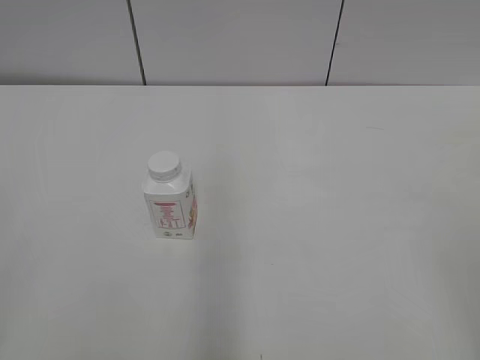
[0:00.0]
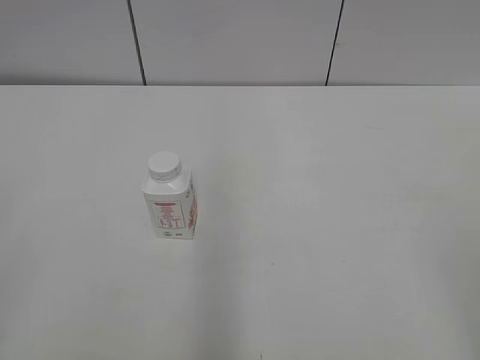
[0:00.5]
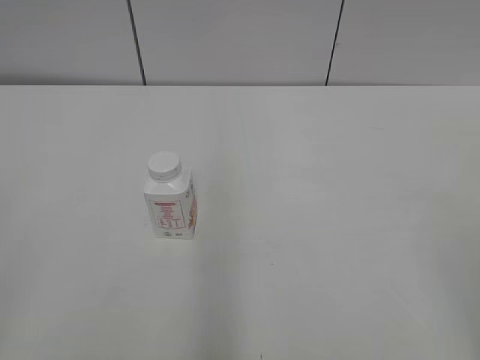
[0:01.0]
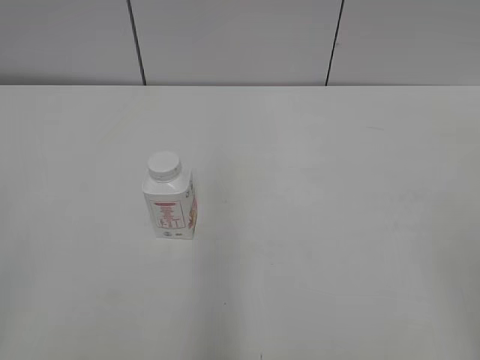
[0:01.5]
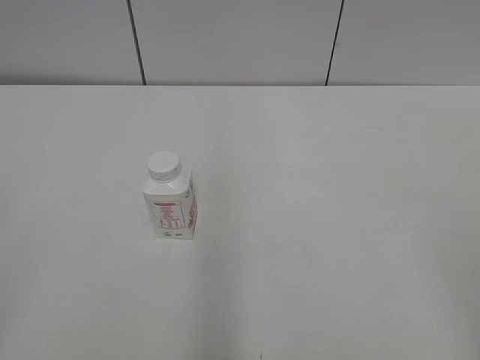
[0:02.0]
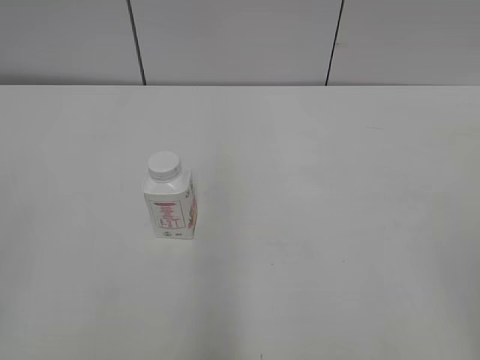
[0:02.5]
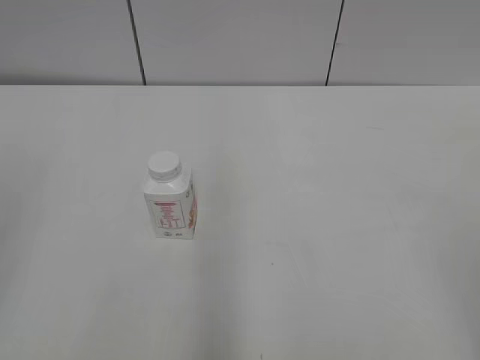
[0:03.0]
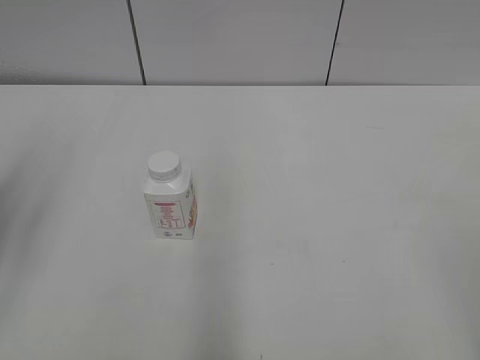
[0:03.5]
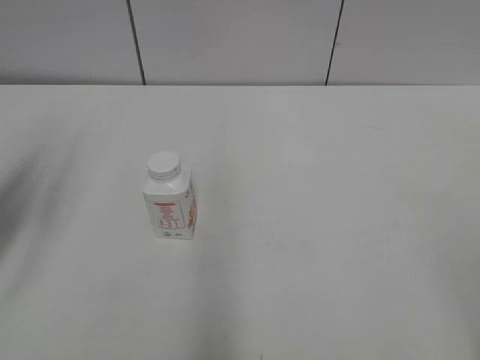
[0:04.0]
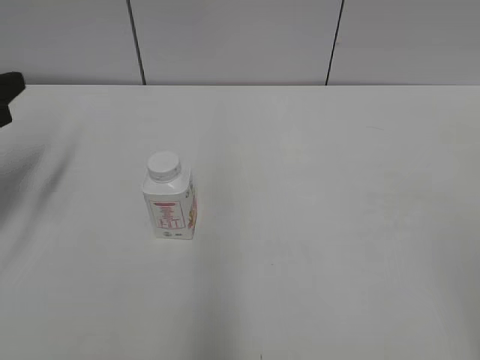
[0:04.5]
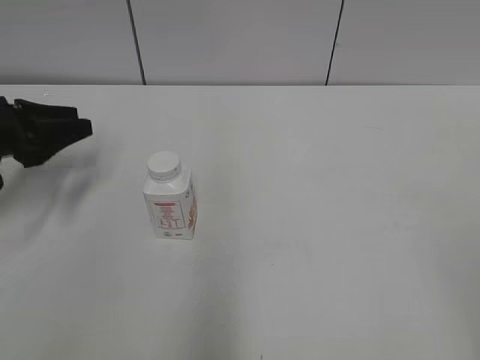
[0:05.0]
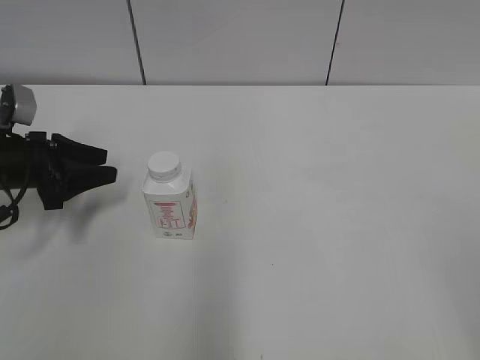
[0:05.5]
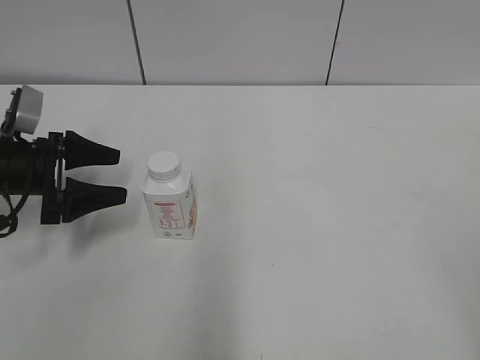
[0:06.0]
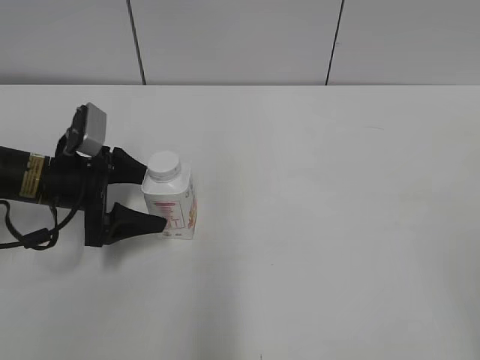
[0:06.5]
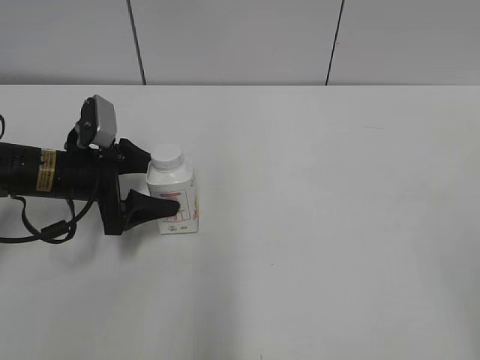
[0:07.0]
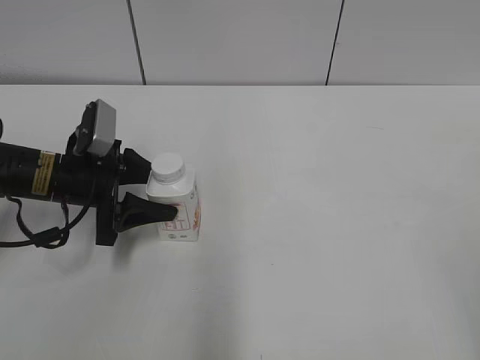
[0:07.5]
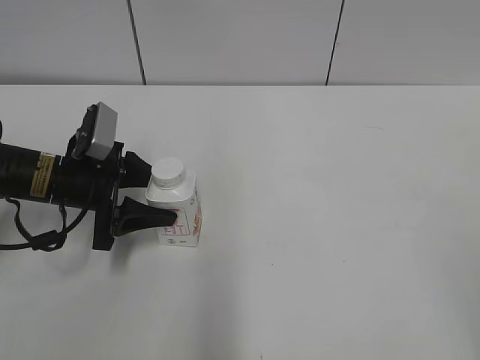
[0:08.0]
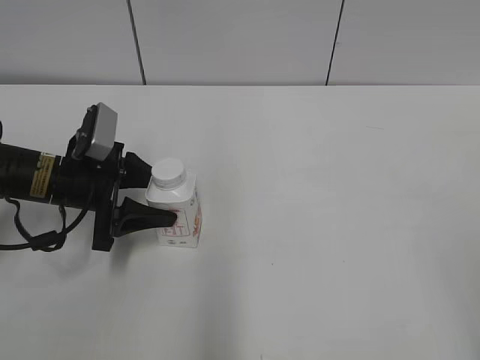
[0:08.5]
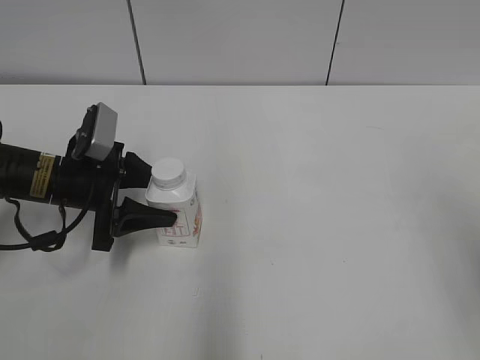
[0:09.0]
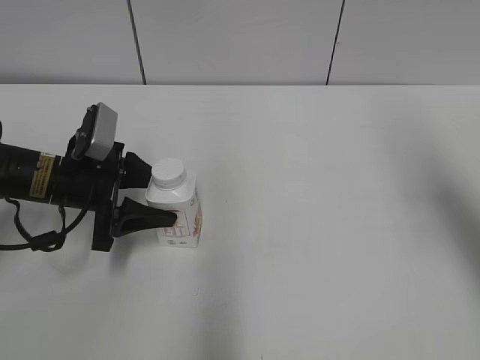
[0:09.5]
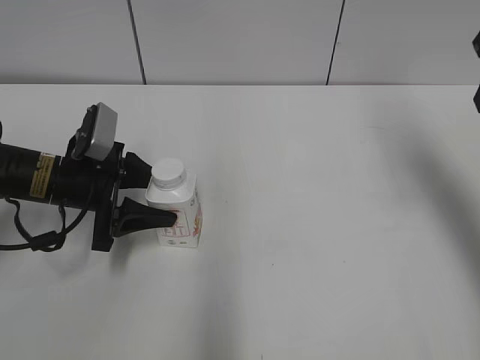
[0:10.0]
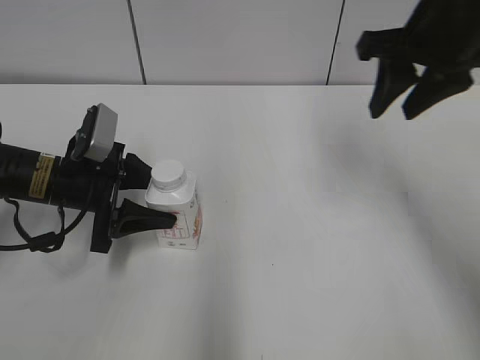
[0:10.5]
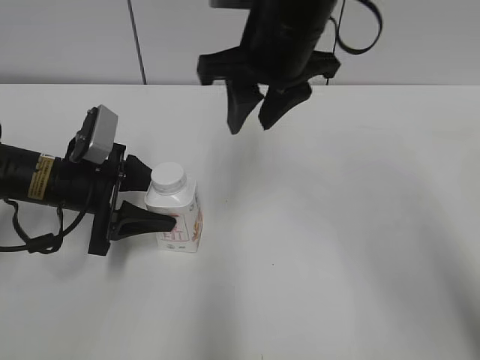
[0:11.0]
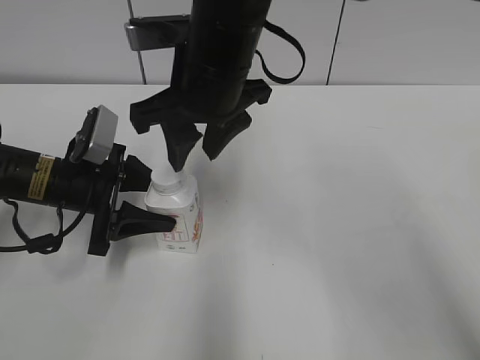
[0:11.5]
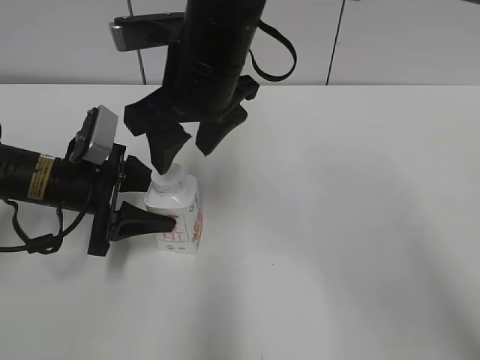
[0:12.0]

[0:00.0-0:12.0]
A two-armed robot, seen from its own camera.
Step, 0:00.0 to 0:10.5: Grasp the bottle and move it to the center of the table with the left gripper.
0:02.0 to 0:04.0: The left gripper shifts approximately 25 cm forward.
0:04.0 to 0:06.0: The left gripper shifts about 20 cm downward and forward, and opens up.
0:06.0 to 0:08.0: The left gripper travels to the right by approximately 5 cm, and closes up.
0:08.0 to 0:10.0: The right gripper heads forward, covering approximately 30 cm, and closes its fingers.
0:10.0 to 0:12.0: The right gripper is displaced to the left by about 30 cm, and opens its fingers.

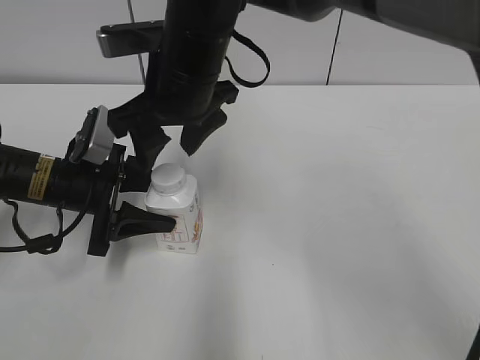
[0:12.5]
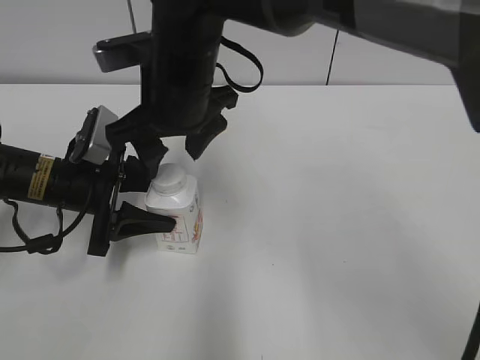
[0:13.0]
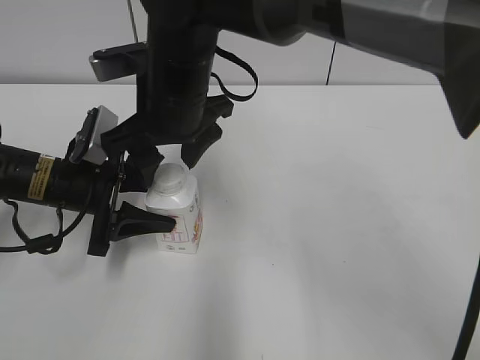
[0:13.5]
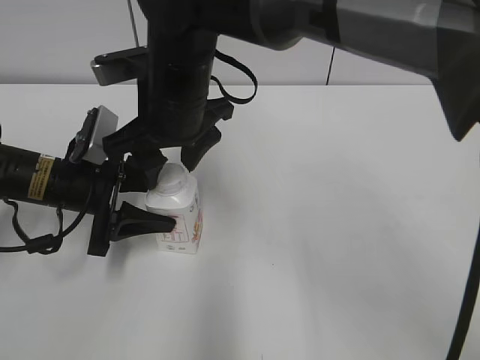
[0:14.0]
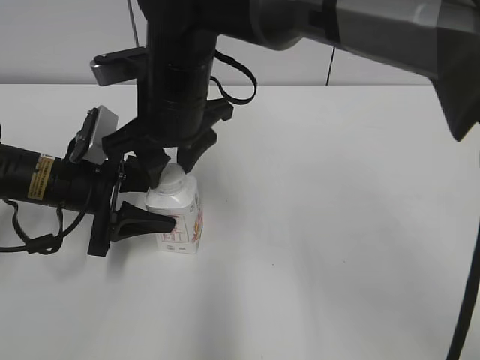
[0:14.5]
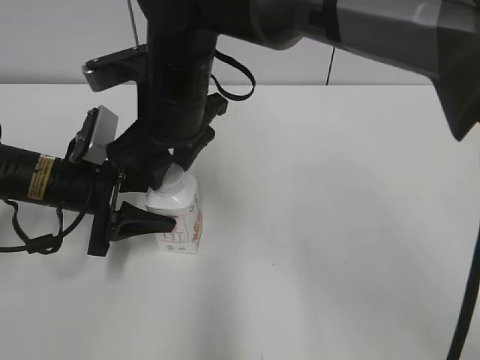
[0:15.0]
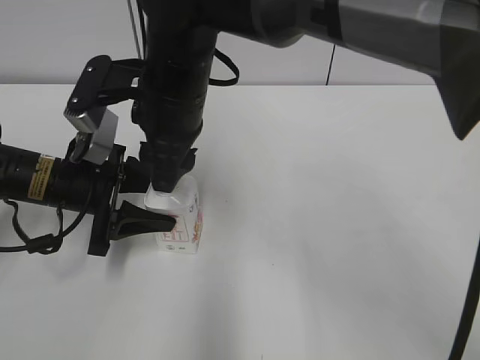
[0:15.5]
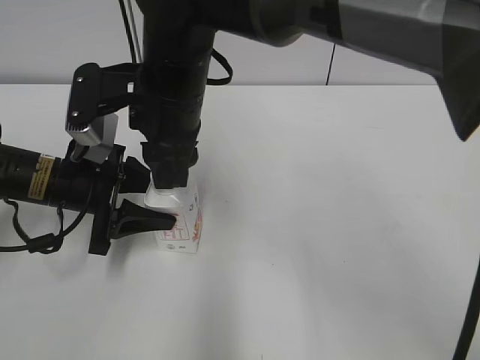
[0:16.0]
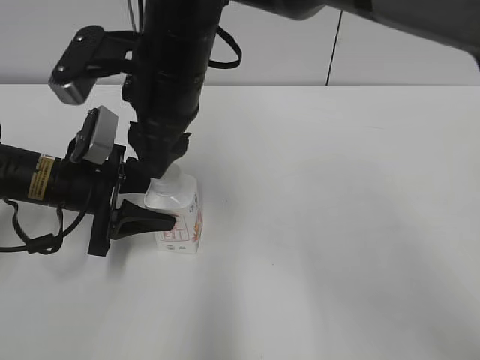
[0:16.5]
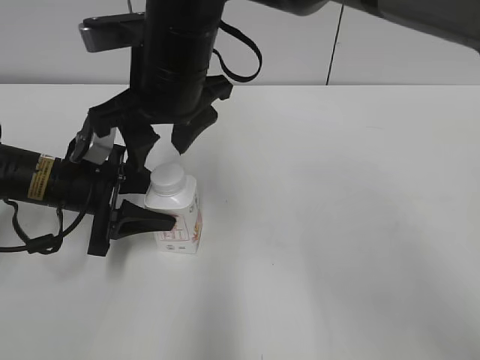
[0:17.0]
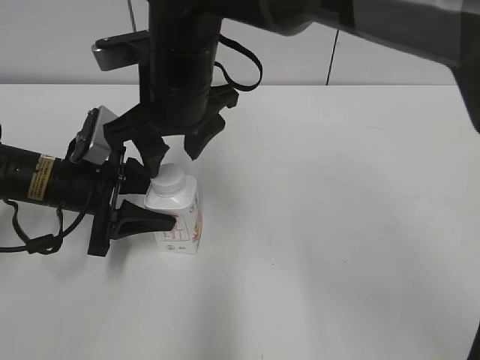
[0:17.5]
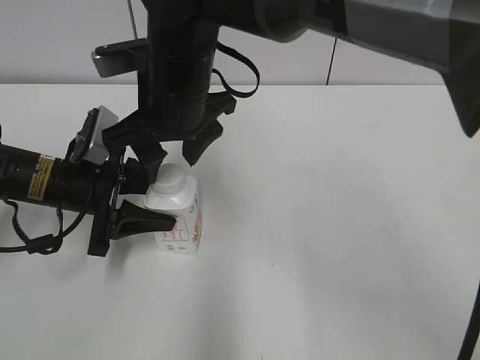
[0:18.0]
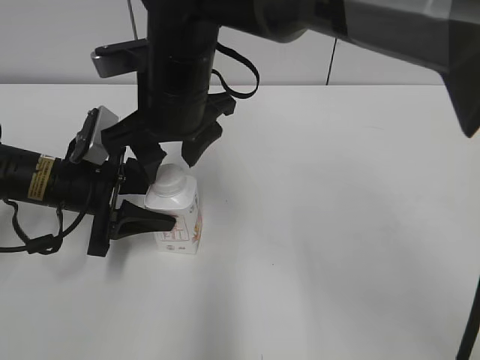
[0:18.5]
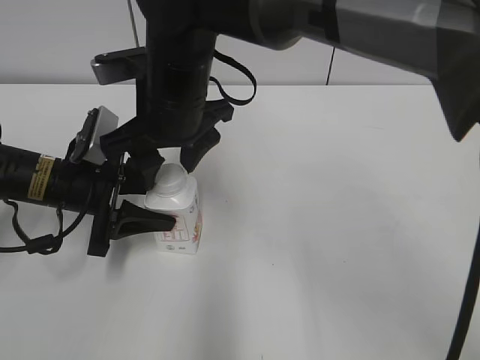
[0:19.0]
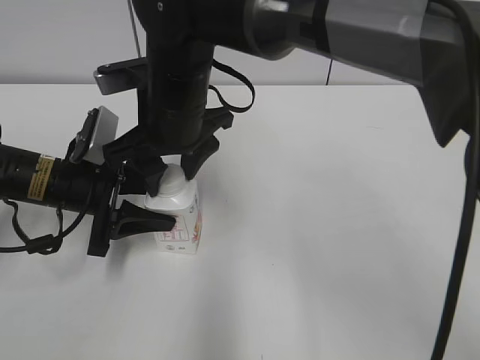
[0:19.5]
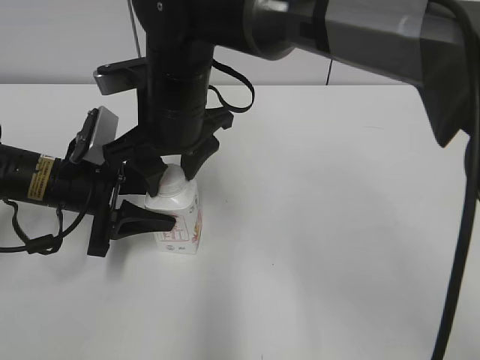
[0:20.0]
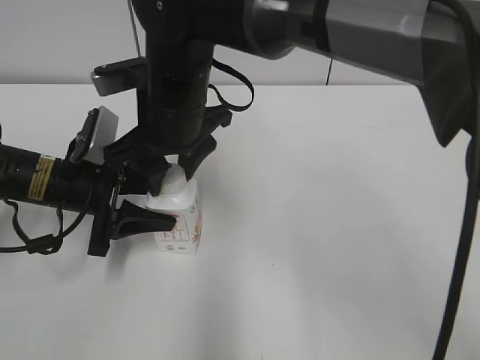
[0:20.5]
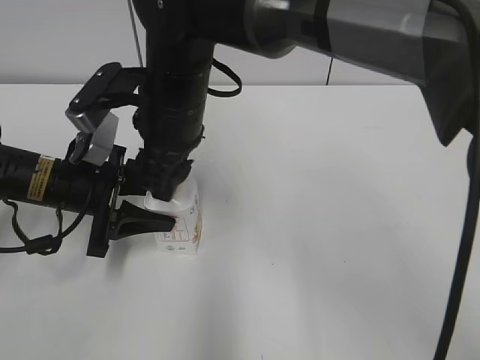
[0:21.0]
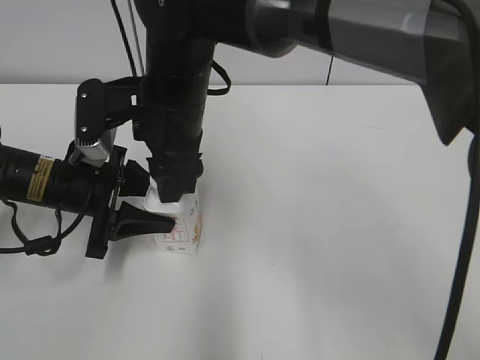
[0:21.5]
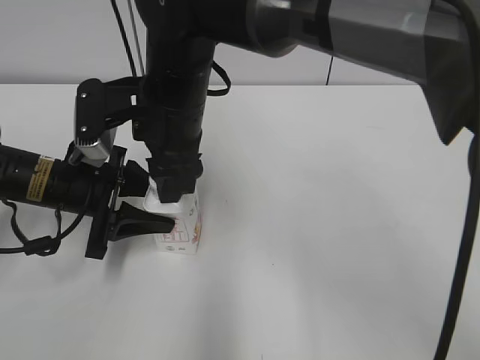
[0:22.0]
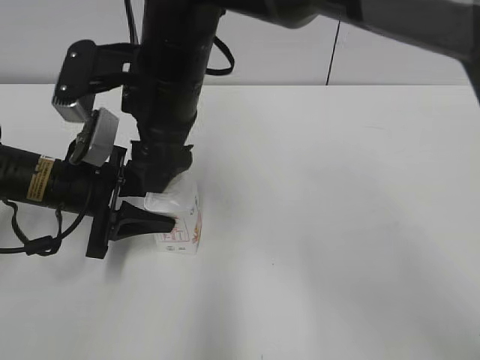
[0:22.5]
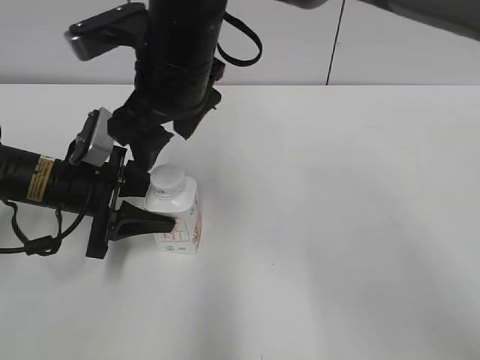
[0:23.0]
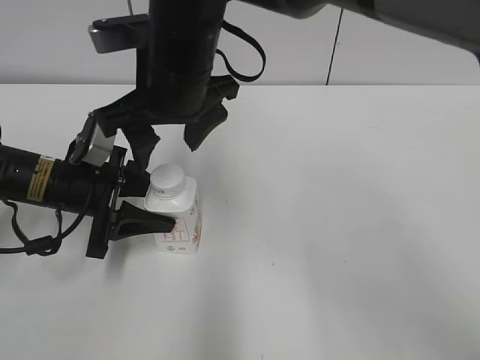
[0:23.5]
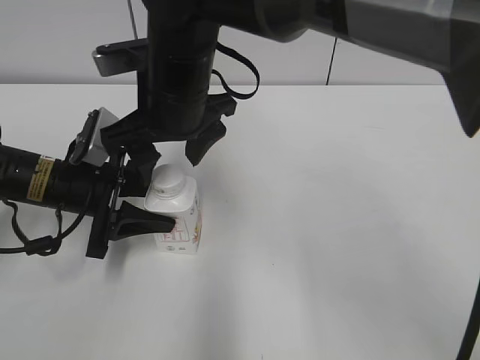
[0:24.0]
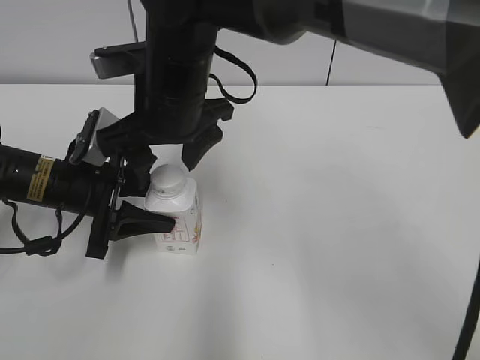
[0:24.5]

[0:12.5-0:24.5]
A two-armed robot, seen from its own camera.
0:12.5 to 0:14.5: The right gripper closes up.
0:16.5 to 0:18.5: The right gripper opens.
0:18.5 to 0:20.5: The right gripper closes its fingers.
0:20.5 to 0:22.5: The right gripper opens up.

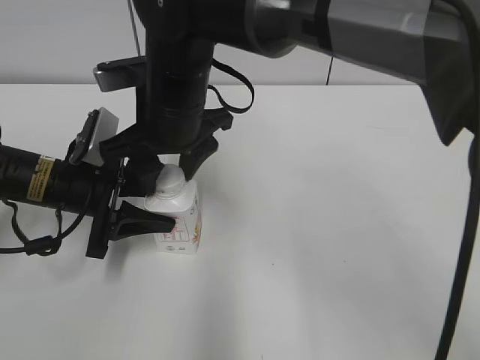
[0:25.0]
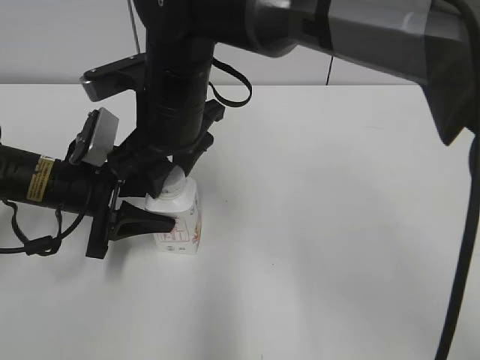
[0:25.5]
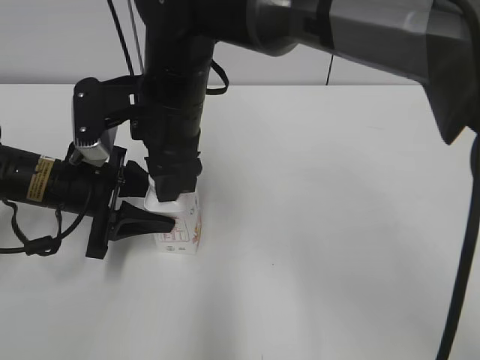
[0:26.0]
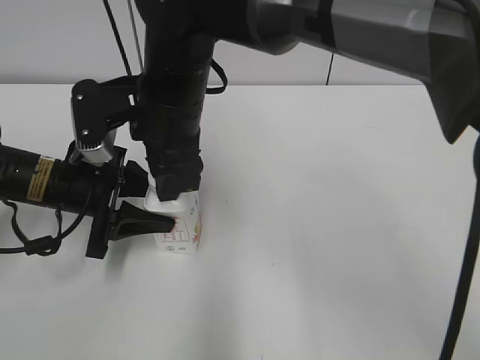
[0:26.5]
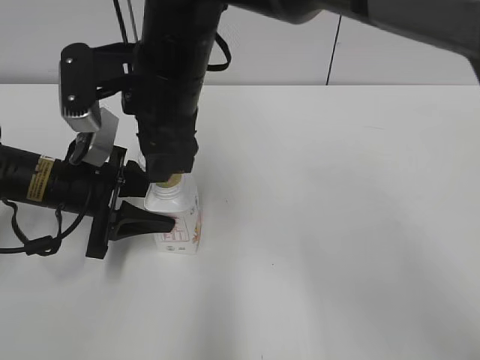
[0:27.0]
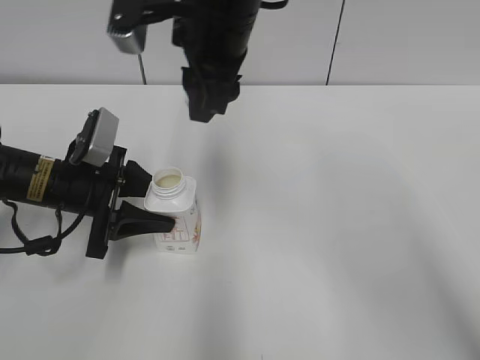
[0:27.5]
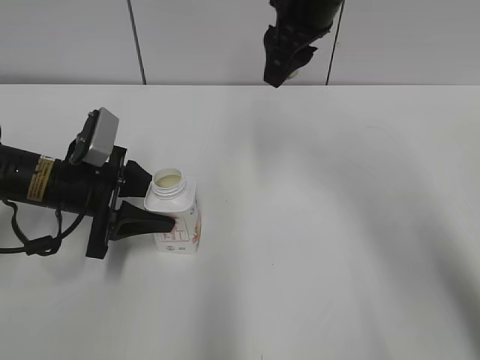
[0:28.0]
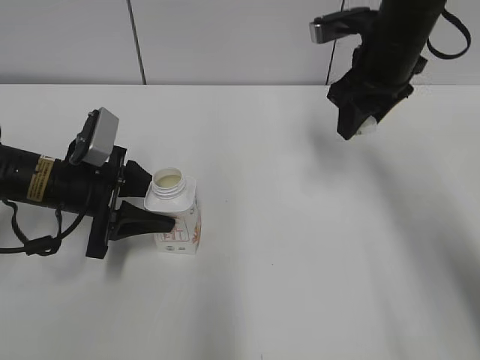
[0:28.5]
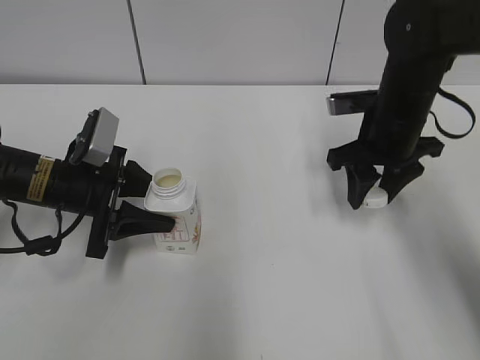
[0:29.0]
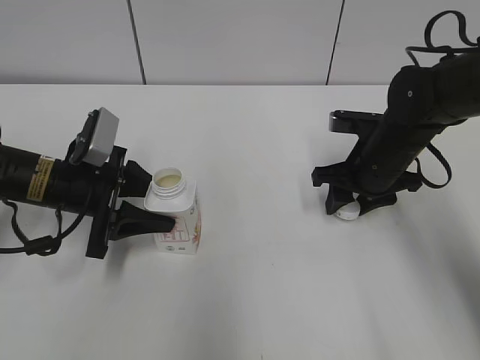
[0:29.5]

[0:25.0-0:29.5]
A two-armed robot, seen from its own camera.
Step, 0:25.0 to 0:27.0: Unscrew the bottle cap with the right gripper while holding the bottle with the left gripper.
0:25.0 to 0:27.0: The right gripper closes its fingers.
0:27.0 to 0:29.5: The right gripper heads to the right and downward, covering approximately 30 cm.
